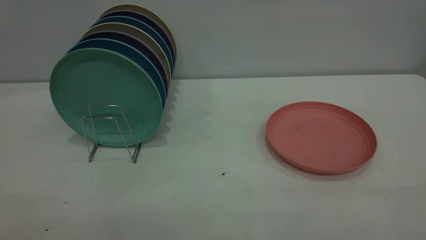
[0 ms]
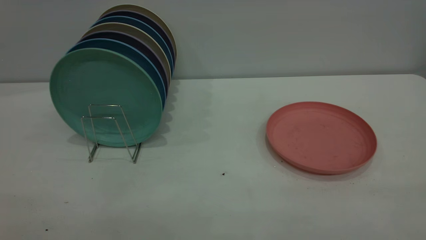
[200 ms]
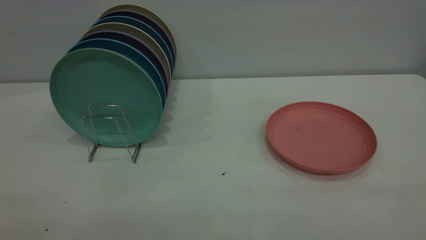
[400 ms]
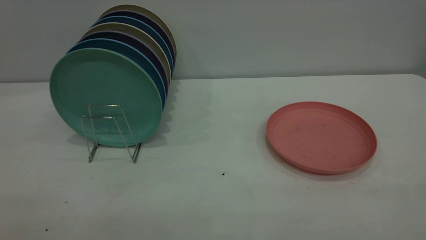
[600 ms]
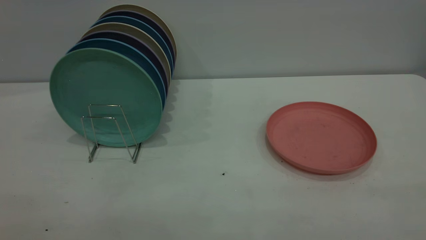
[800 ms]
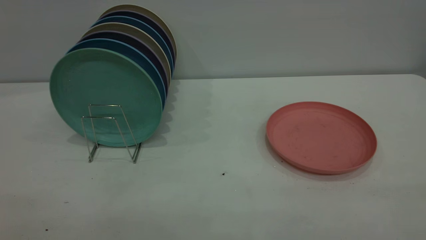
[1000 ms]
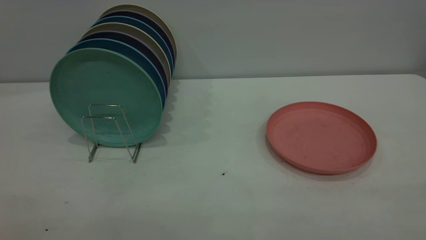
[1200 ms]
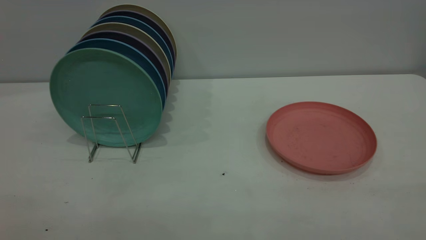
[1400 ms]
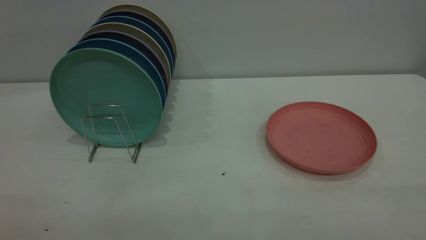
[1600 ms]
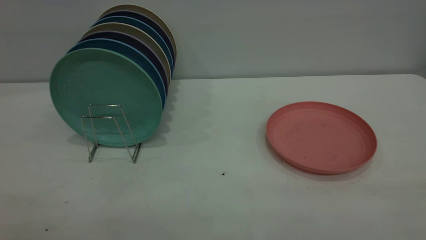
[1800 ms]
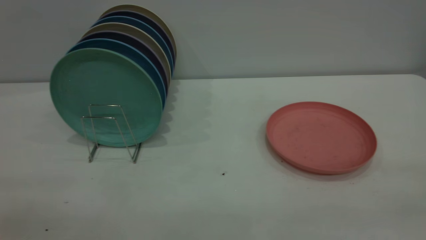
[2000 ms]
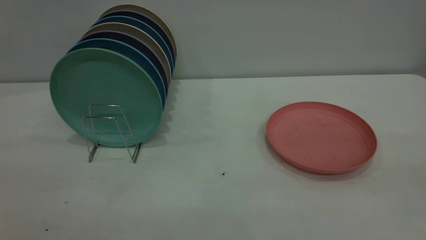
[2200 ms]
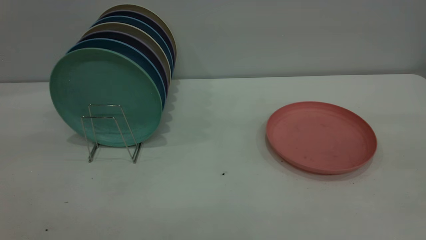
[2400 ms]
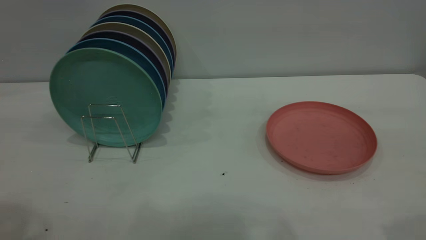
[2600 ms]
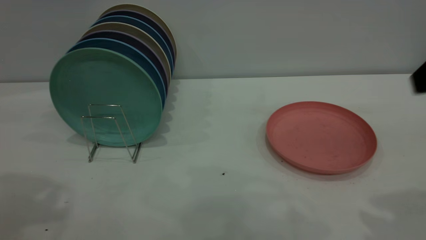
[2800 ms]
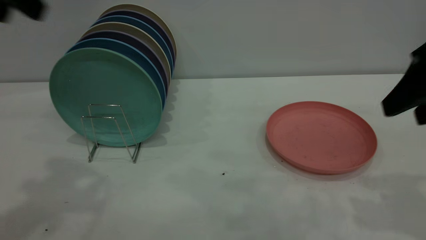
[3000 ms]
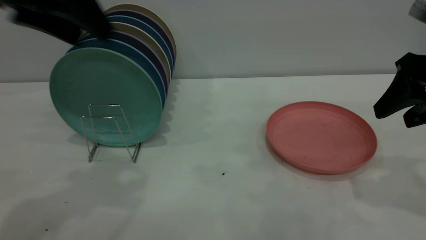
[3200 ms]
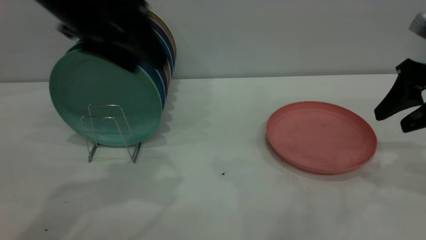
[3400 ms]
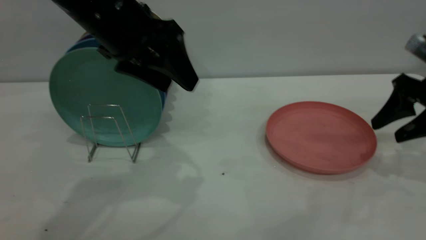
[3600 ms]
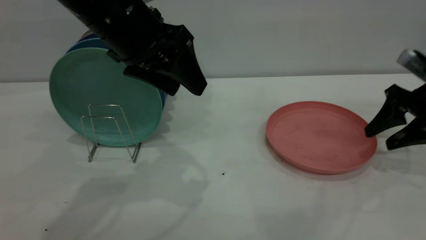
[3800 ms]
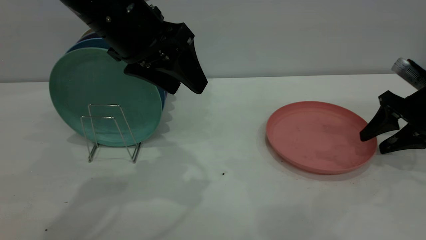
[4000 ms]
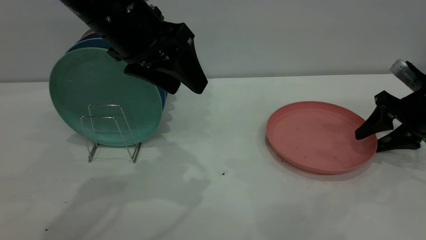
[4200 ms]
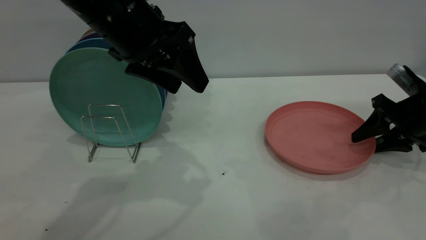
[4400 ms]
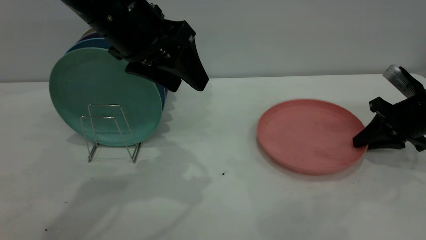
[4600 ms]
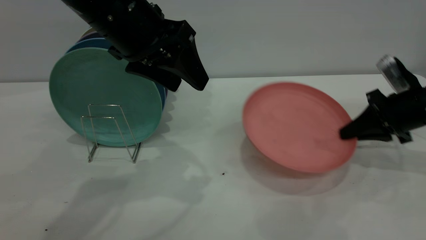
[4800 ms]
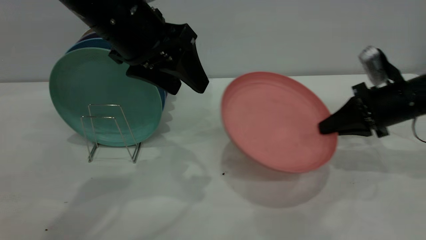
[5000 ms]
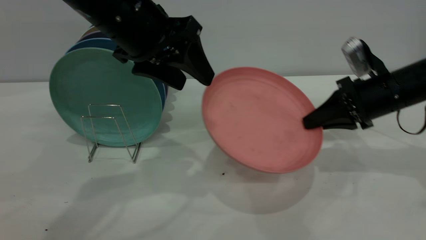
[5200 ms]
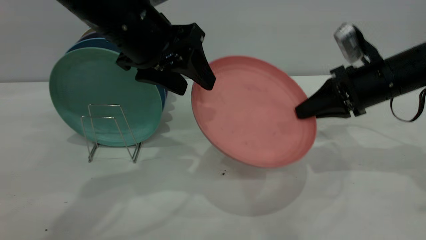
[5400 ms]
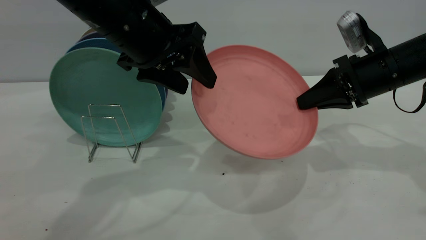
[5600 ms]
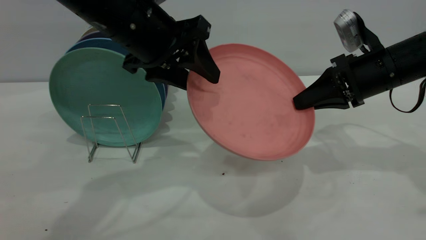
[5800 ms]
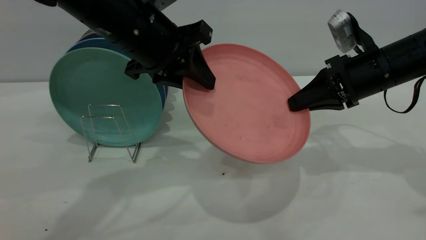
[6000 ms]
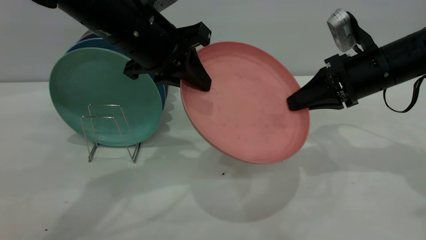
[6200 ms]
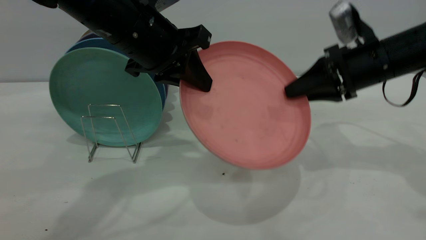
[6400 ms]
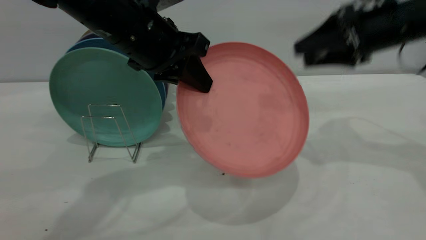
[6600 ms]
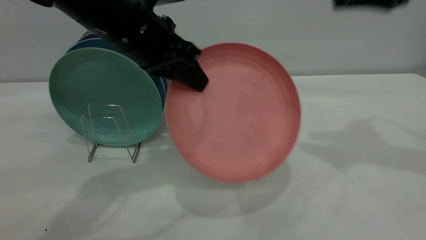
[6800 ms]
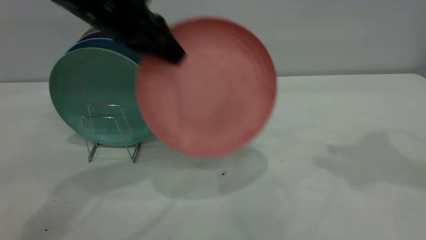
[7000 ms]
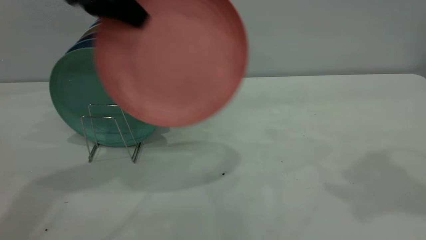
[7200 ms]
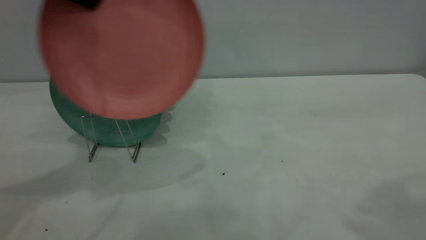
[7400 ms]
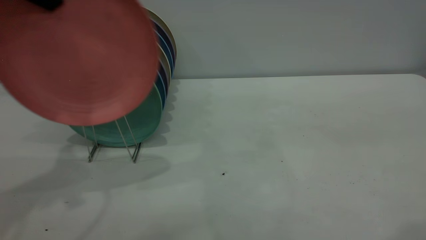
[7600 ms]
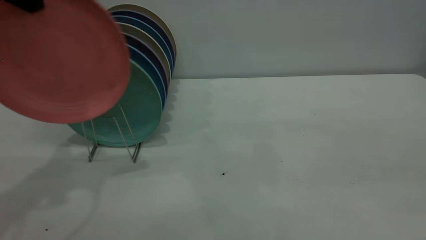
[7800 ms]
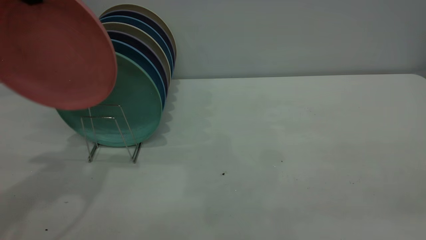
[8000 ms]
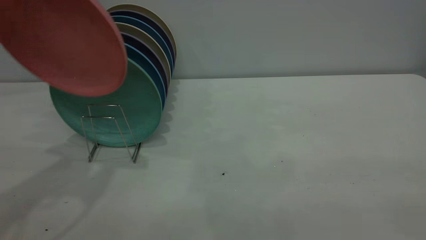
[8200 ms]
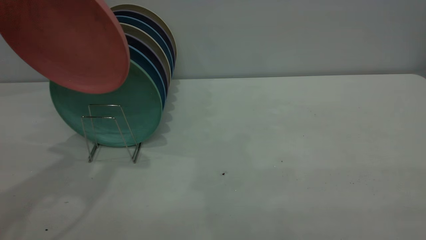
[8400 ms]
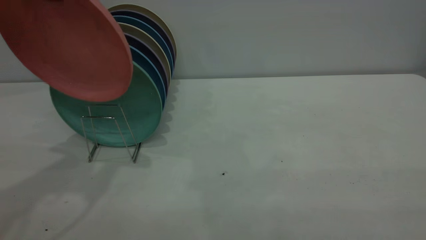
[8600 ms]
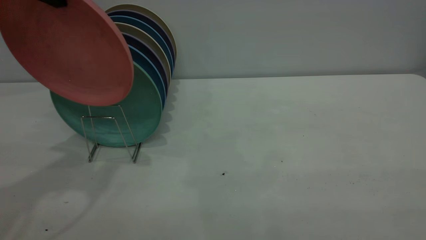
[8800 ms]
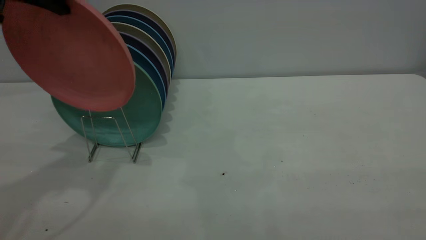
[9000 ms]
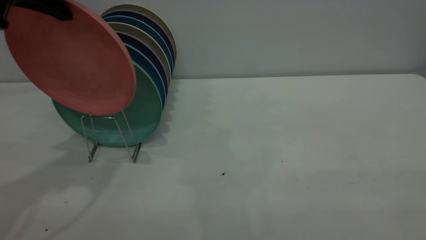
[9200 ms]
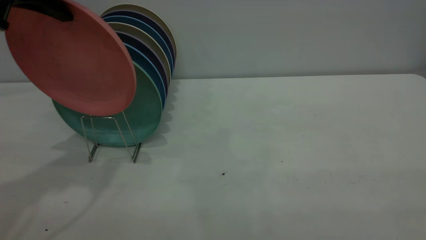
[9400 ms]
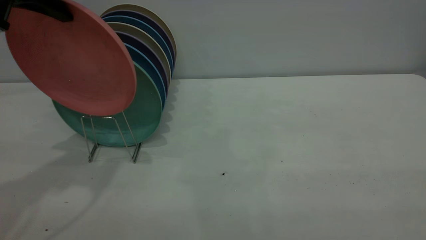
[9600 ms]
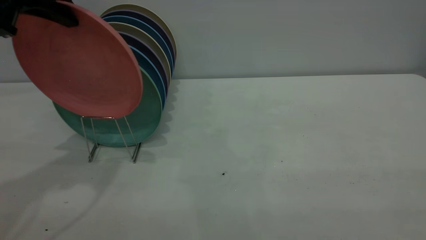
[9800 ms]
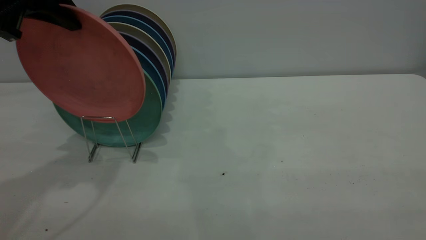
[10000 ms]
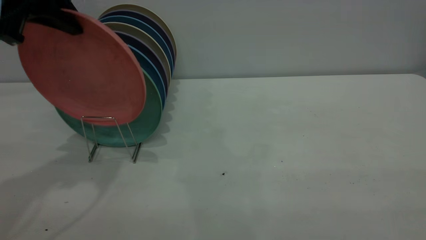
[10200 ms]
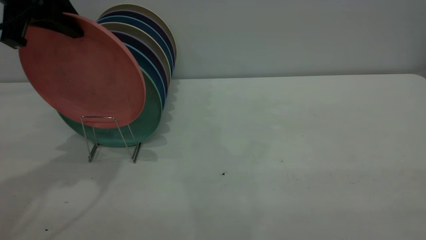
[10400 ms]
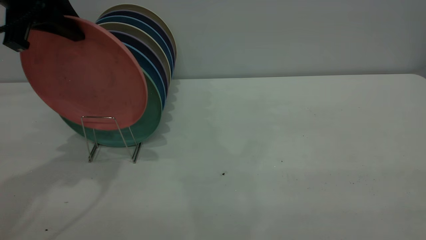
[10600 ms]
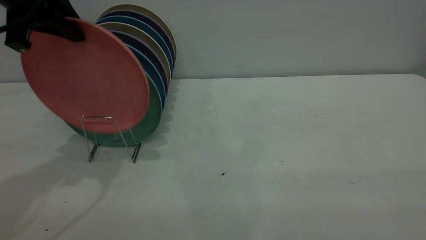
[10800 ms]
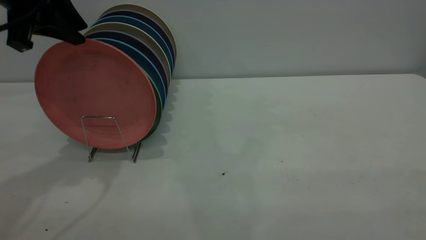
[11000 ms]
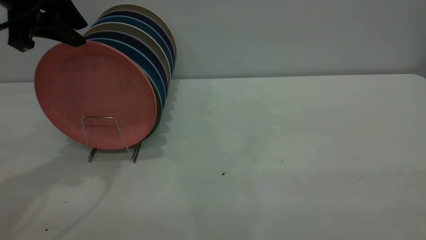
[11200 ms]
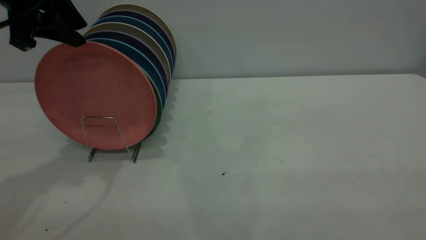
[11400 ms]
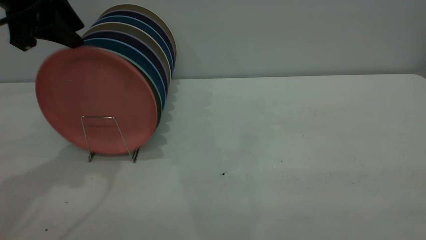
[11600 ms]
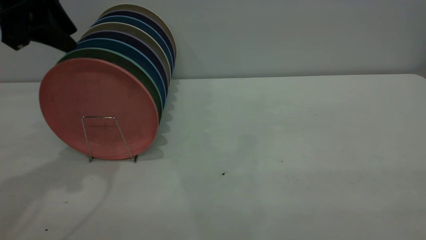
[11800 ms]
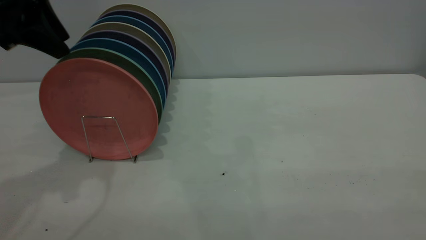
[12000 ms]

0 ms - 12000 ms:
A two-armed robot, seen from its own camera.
Task of the whole recording: the right gripper grasp the pink plate, the right gripper pass the pink plate to the left gripper, and the left gripper place the pink plate on the plate rack.
Step, 0 ms - 4800 ms: Pick up the plate with the right gripper.
Step, 5000 ms - 6600 ms: Pass the plate from the right gripper to the left gripper.
0 ms - 1600 ms: Both grippers stay about where they are.
1600 ms - 3000 ms: Both grippers travel together forward, some 30 cm. The left gripper opens.
3000 ms - 4400 ms: The left gripper is displaced to the right and downward by about 15 cm. Meanwhile the right gripper heads downward and forward, covering approximately 20 cm.
4400 ms - 6000 ms: The left gripper closes up, while the right gripper moves to the left and upward, roughly 15 cm, and closes.
6000 ms - 7600 ms: The right gripper travels upward and backward by roughly 35 cm, and opens; the left gripper travels to the left and upward by roughly 20 cm.
7600 ms - 9000 ms: The right gripper goes approximately 15 cm backward and downward.
9000 ms - 10400 ms: The grippers move only a little.
10400 ms - 12000 ms: The left gripper opens its fingers.

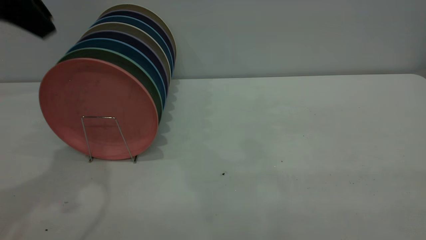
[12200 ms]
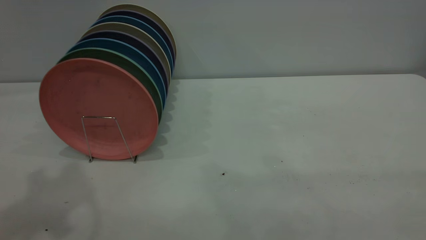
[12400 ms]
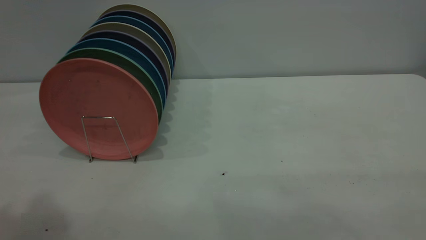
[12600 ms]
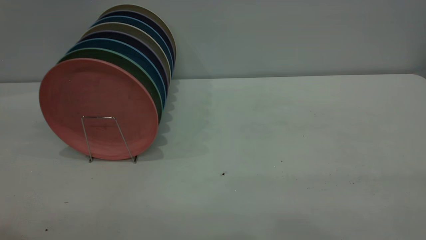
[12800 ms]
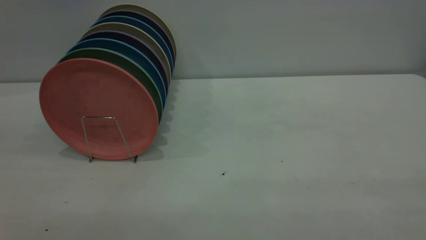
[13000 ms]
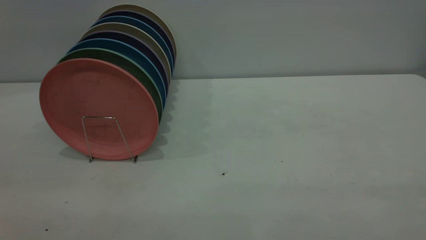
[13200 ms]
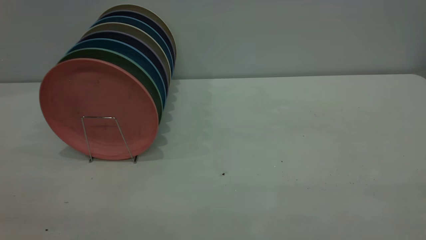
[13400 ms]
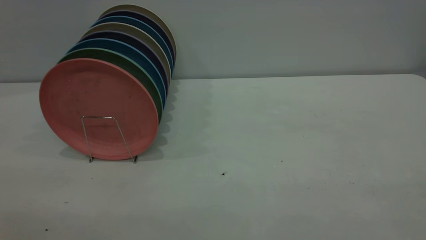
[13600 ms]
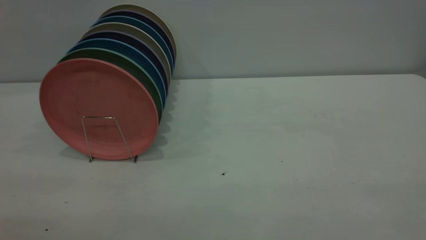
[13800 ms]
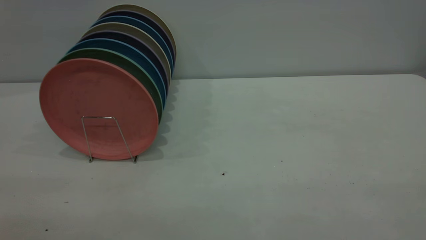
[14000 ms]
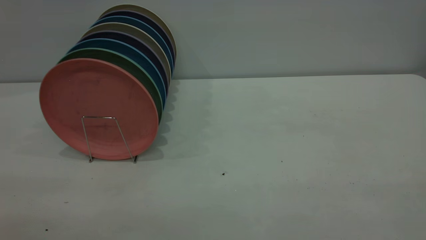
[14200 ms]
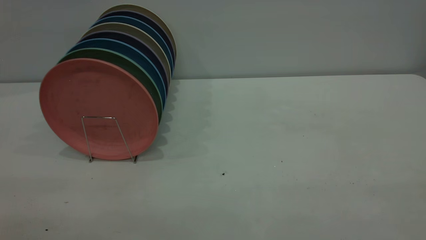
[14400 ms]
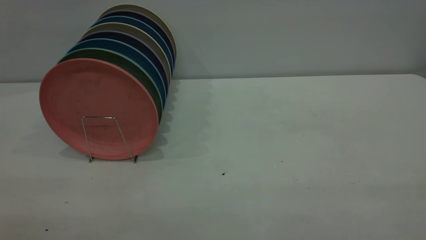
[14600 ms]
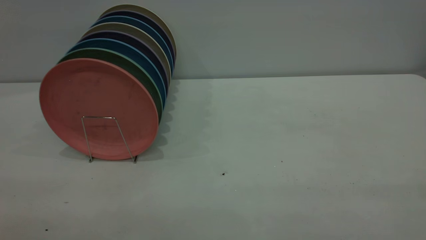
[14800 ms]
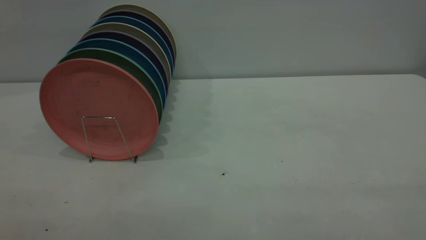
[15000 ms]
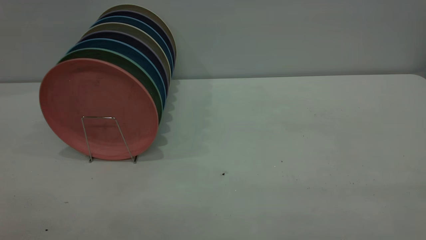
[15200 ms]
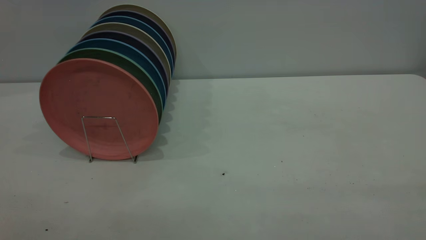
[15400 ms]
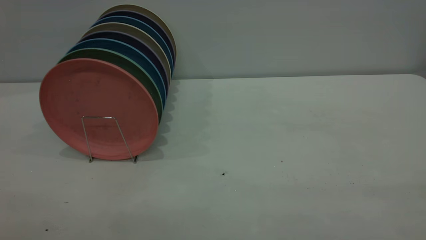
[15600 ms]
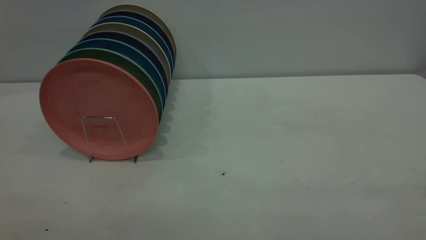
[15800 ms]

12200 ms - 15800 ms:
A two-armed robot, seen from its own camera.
Task of the whole recording: the right gripper grasp the pink plate, the right gripper pass the pink plate to the left gripper, and the left gripper place the pink plate on the plate rack.
12200 ms - 14000 ms: The left gripper travels backward by roughly 30 cm.
